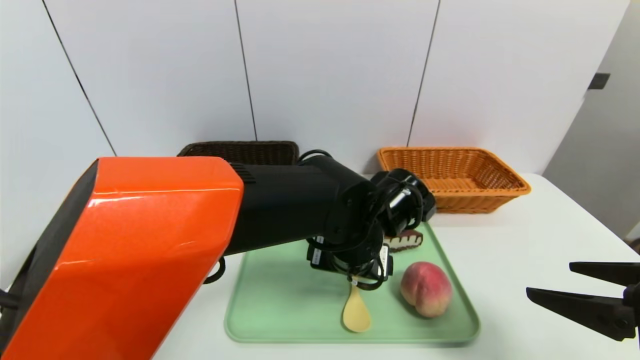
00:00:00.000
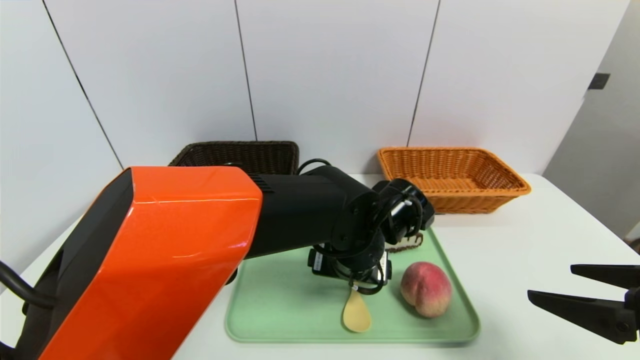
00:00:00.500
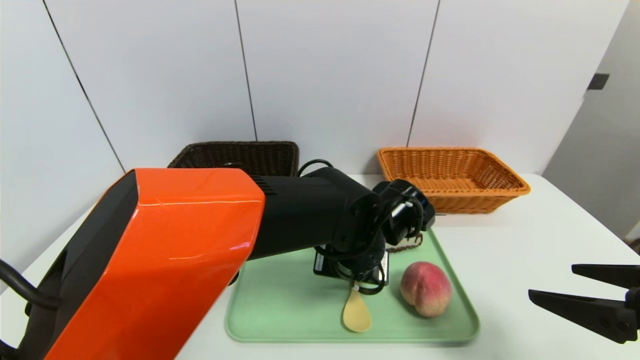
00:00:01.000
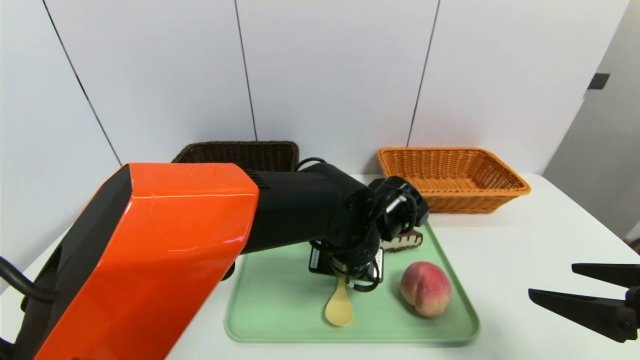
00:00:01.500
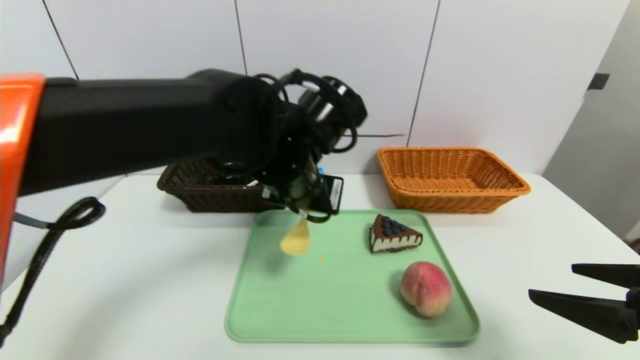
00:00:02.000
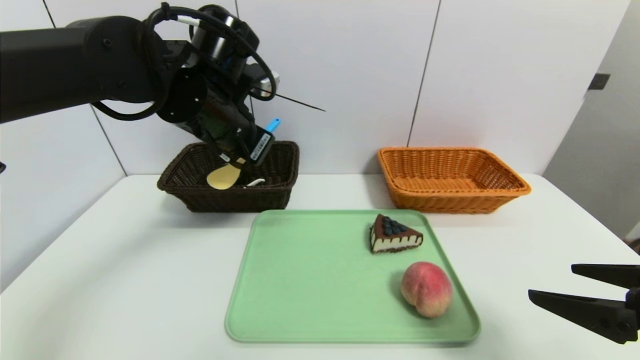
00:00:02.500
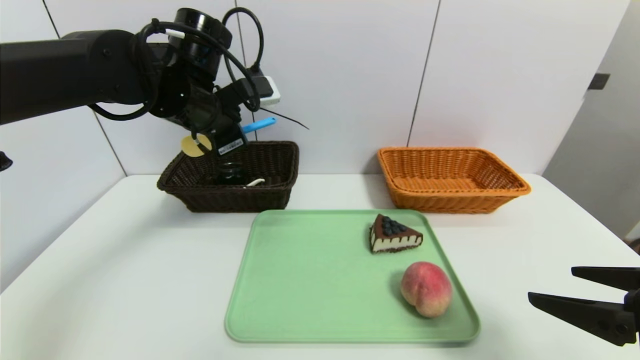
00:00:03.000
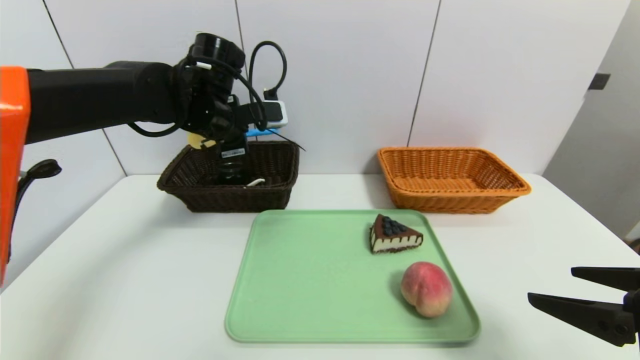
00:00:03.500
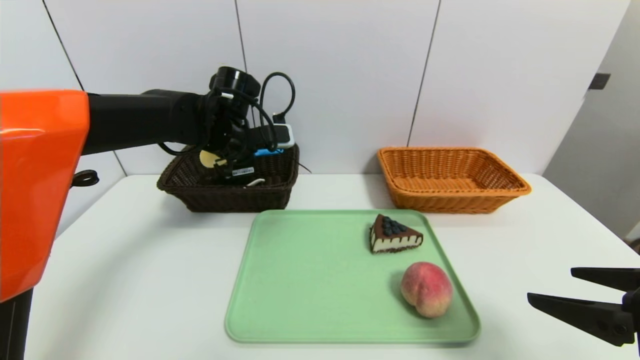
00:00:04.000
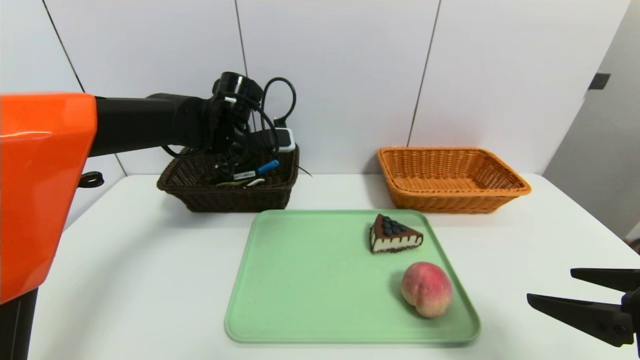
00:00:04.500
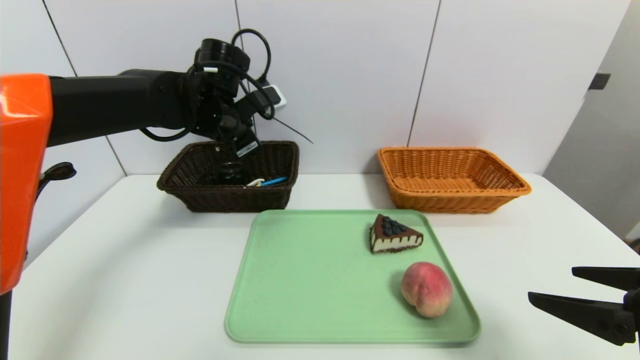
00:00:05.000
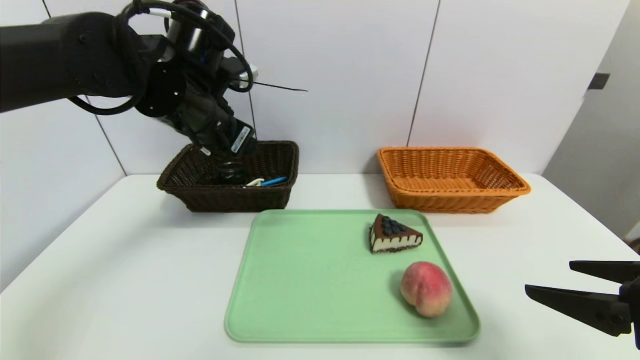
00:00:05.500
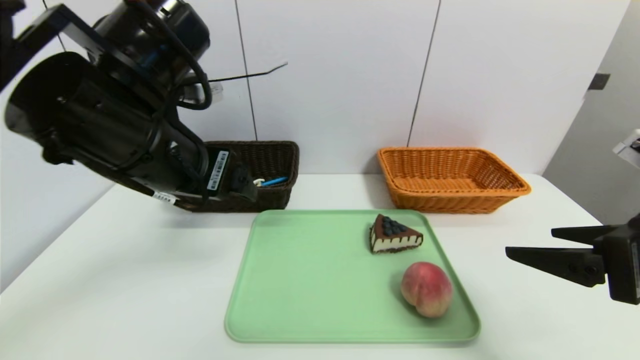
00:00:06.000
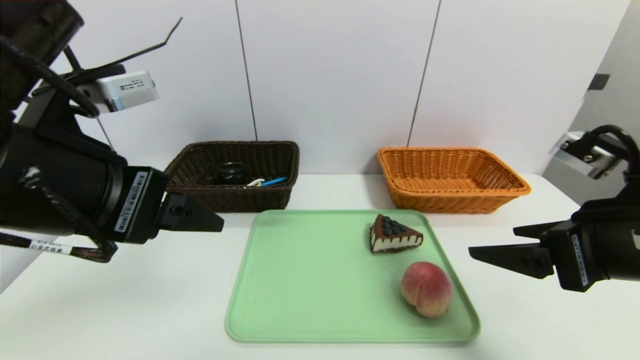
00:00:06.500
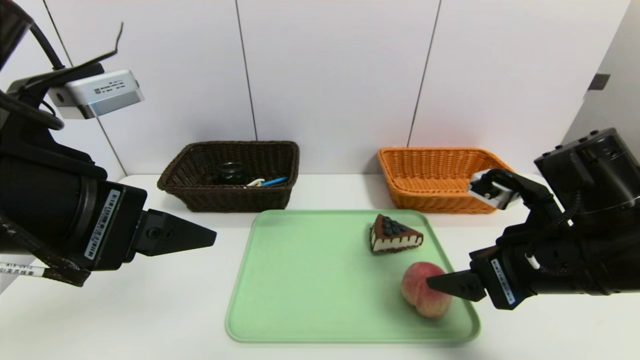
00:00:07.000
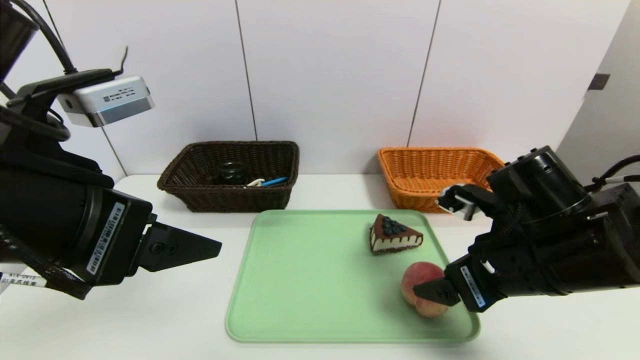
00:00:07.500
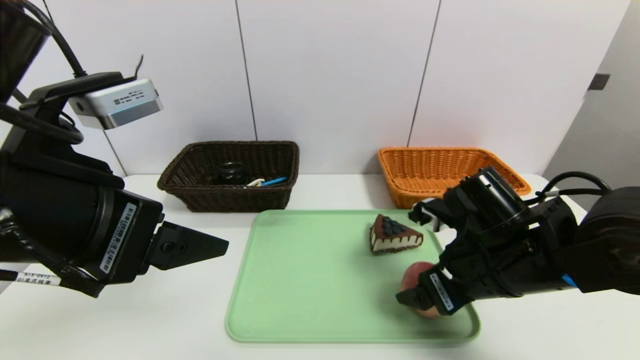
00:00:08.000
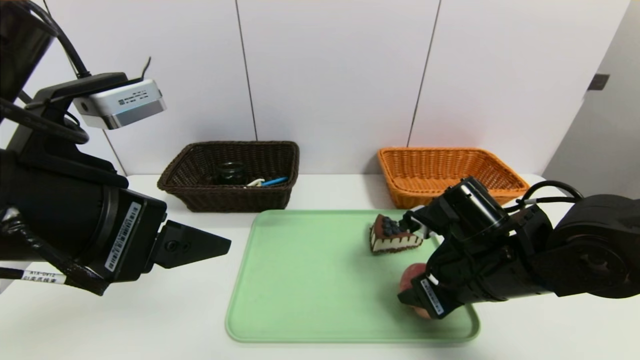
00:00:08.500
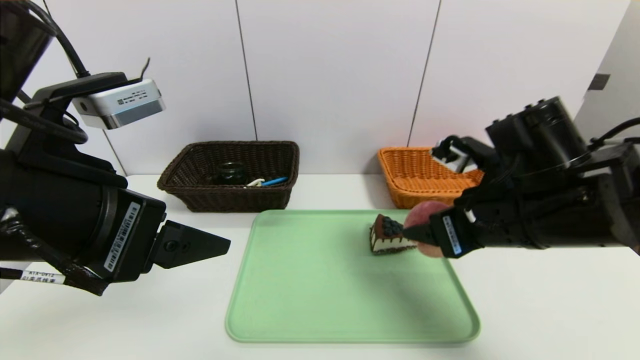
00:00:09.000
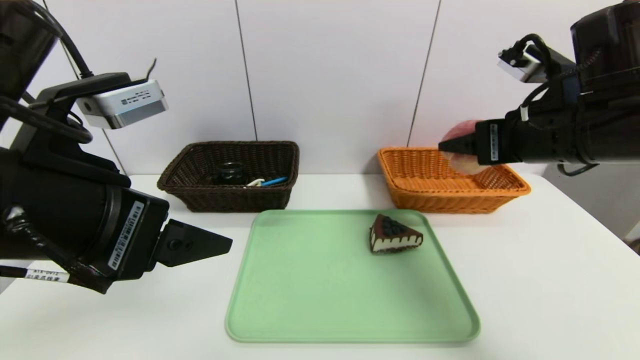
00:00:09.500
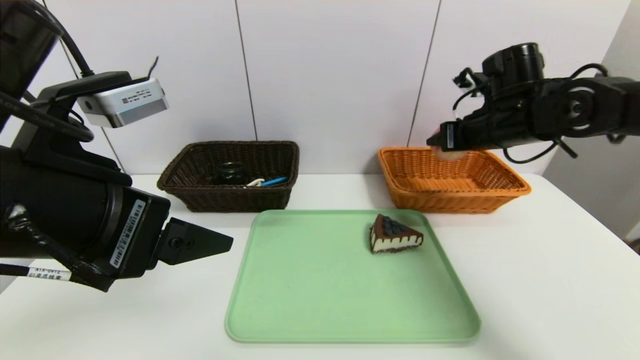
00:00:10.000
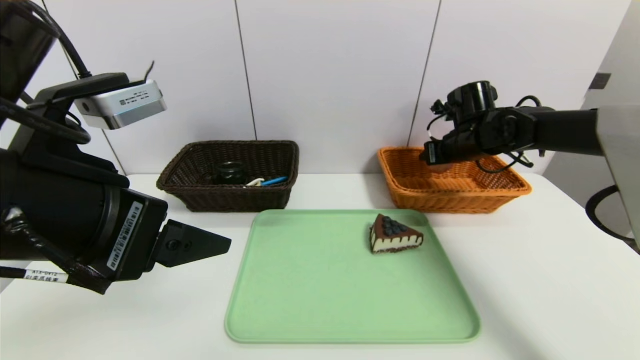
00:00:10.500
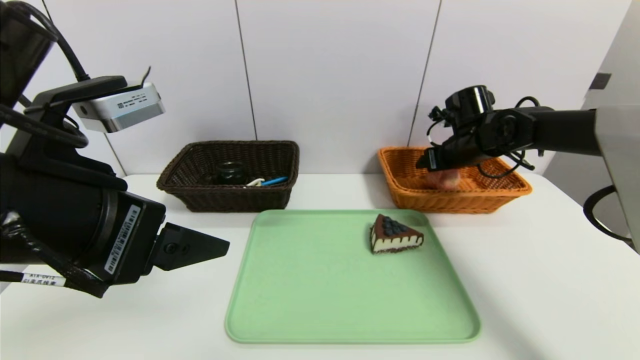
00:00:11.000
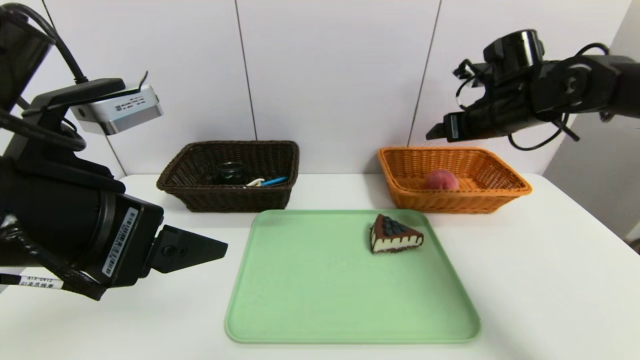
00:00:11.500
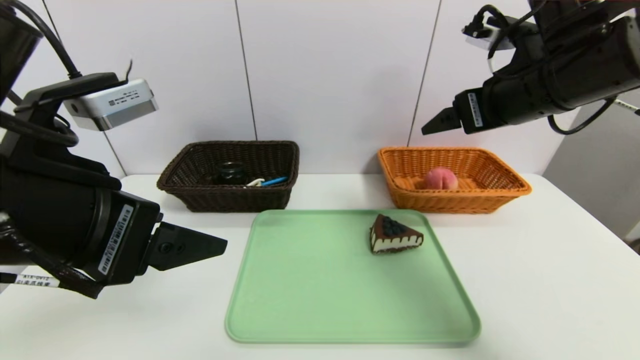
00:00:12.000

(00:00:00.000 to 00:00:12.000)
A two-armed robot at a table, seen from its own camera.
Task of the whole recording: place the food in the right basket with the right gripper, and place the non food items in the left basket with the left gripper.
Step, 00:00:00.000 - 00:00:05.000: Grasp the spoon and put it in the left basket.
Step, 00:00:05.500 - 00:00:11.000: Grasp the peach and put it in the right basket.
00:00:00.000 - 00:00:02.000: The left gripper is displaced upward and to the left by about 10 cm, and closes.
00:00:02.000 - 00:00:04.000: The left gripper moves forward and to the left, about 15 cm.
00:00:04.000 - 00:00:06.000: The left gripper moves backward and upward, roughly 20 cm, and opens its fingers.
00:00:06.000 - 00:00:08.000: The right gripper goes some 15 cm to the left, downward and forward; the left gripper shifts roughly 10 cm backward.
00:00:08.000 - 00:00:10.000: The right gripper is displaced forward, upward and to the right by about 20 cm, and closes its fingers.
00:00:10.000 - 00:00:12.000: The right gripper goes some 10 cm backward and upward, and opens.

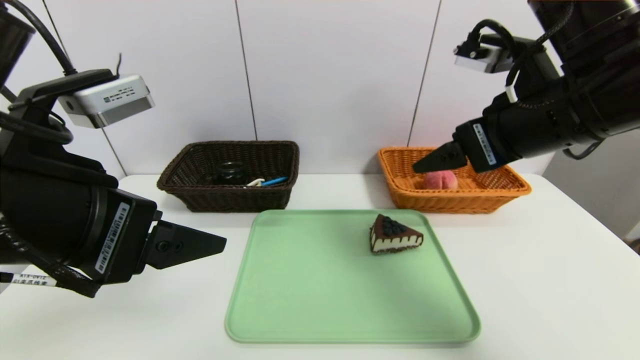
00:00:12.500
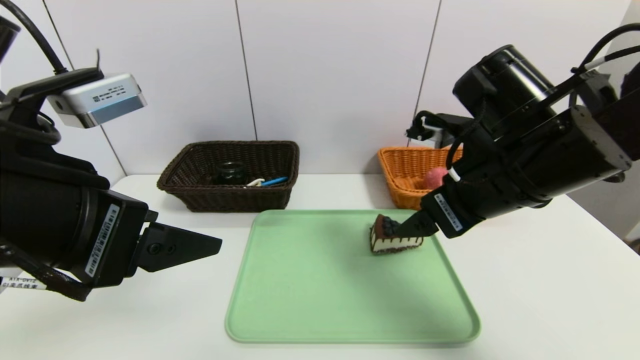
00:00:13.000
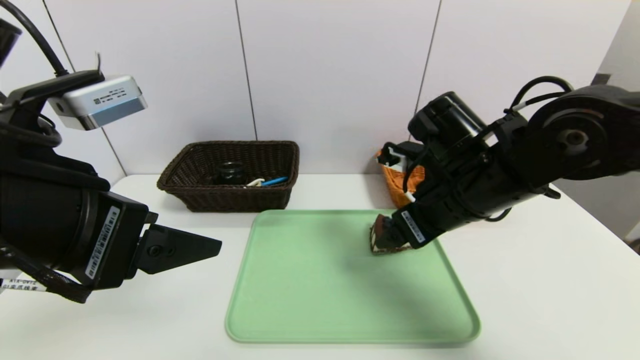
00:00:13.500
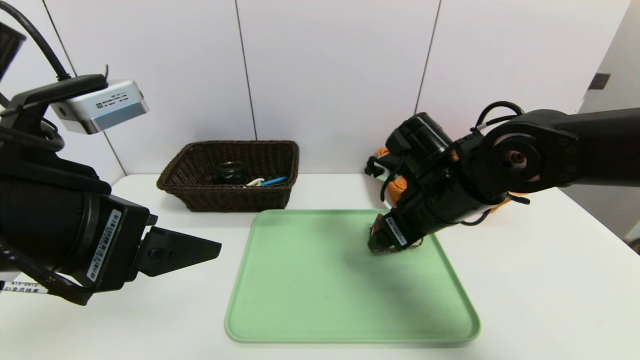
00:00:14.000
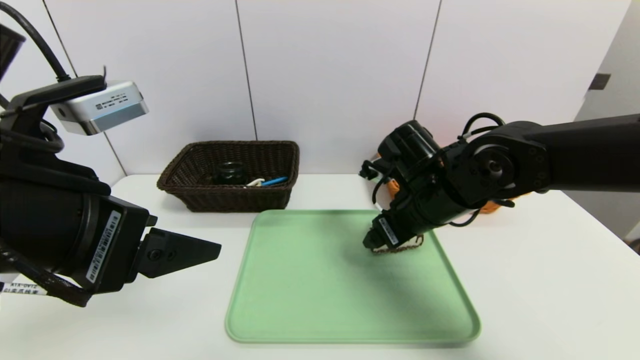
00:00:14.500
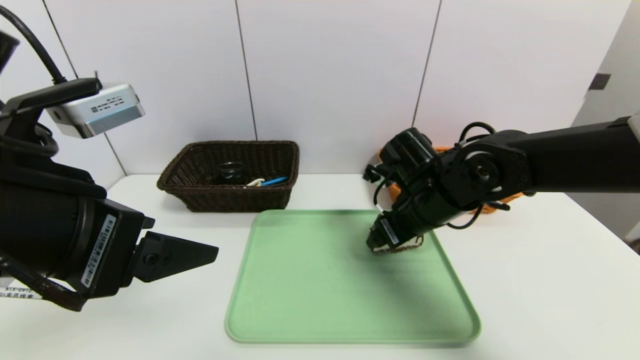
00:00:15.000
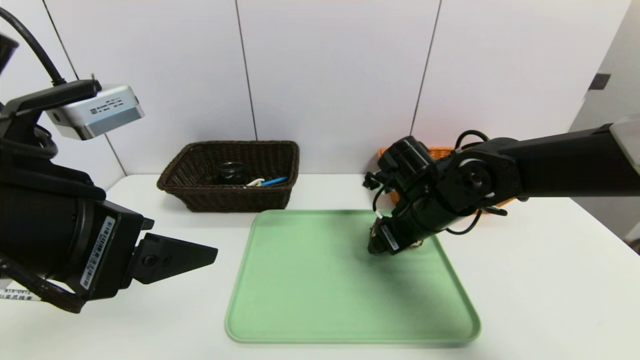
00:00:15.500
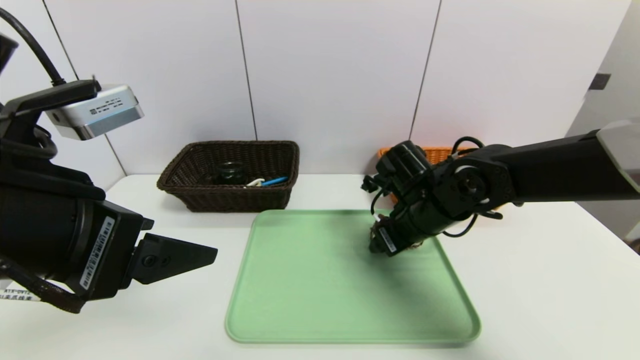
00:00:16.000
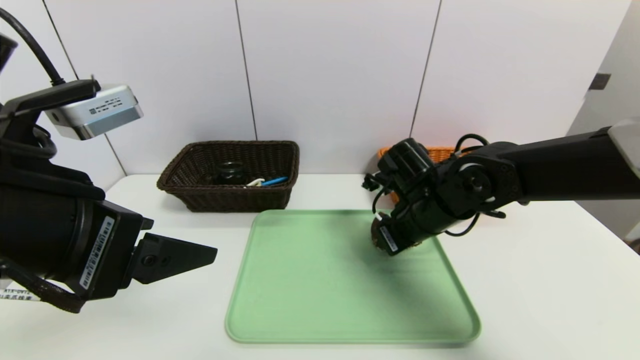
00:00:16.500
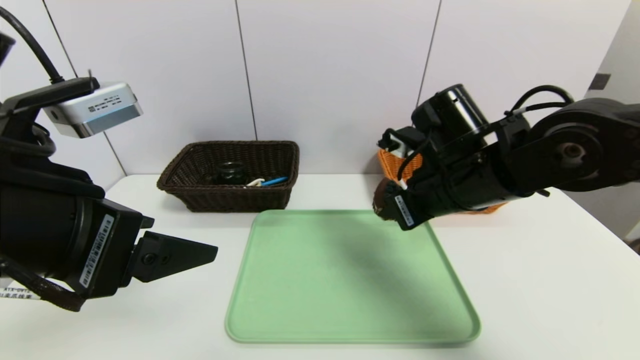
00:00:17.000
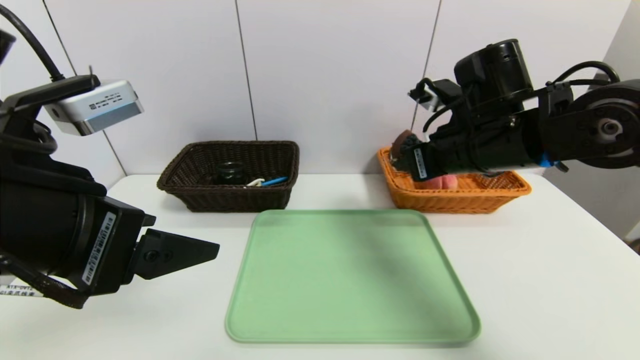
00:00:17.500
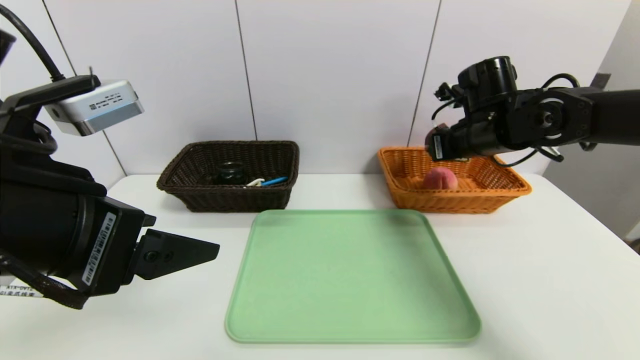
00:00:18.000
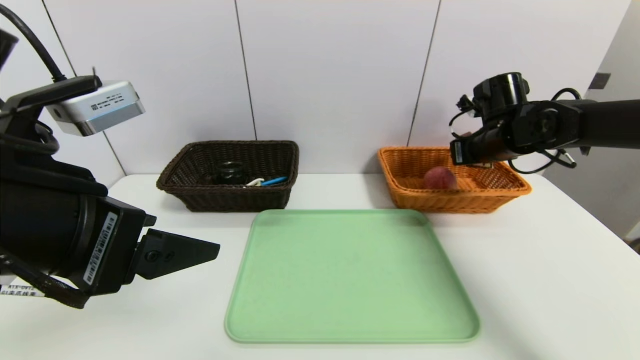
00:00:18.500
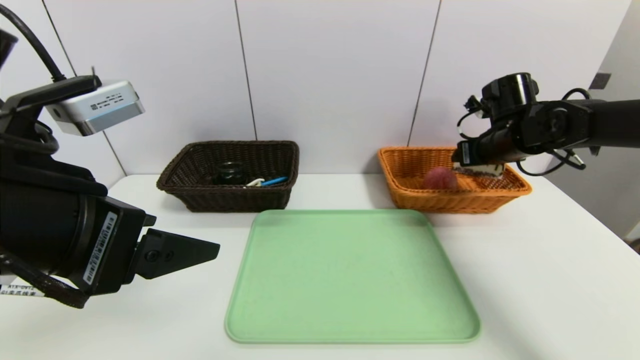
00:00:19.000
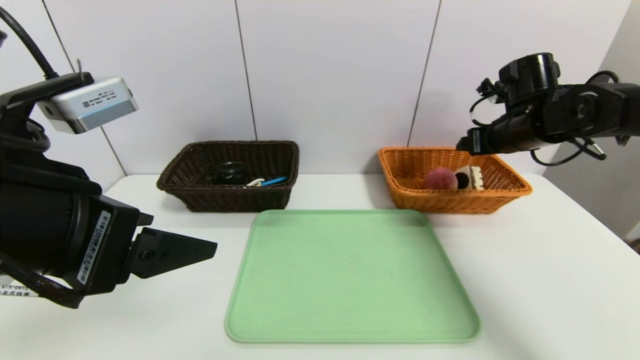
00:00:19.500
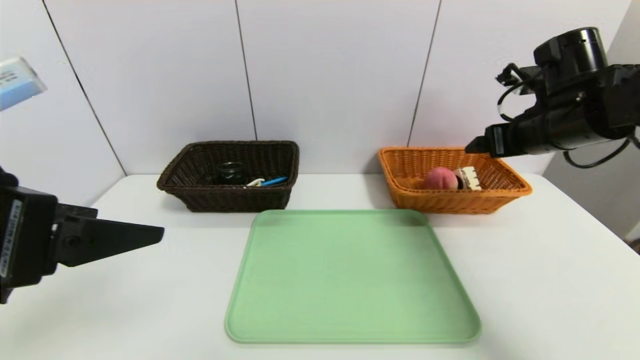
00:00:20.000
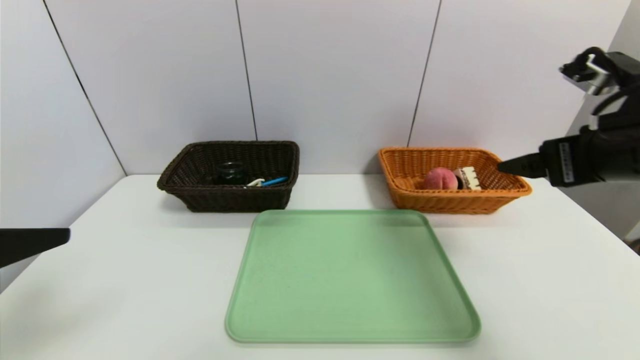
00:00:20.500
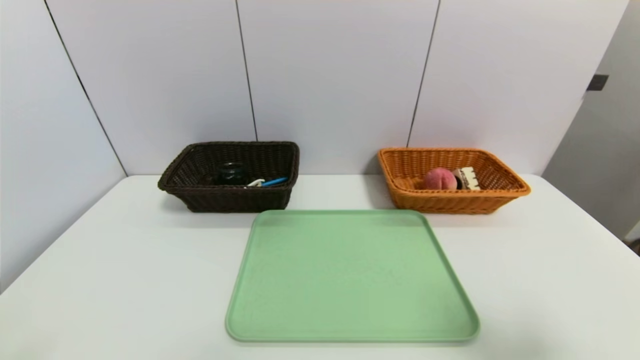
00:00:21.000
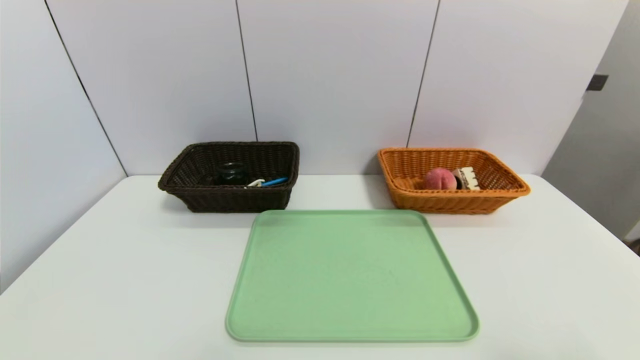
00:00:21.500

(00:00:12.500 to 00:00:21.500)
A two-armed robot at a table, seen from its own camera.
Task of the whole recording: place the food in the right basket with the right gripper, and place the non food items in the left basket with the left gripper.
Step, 00:00:12.500 - 00:00:19.000: Grasp the triangle cake and put it in the right basket.
00:00:12.500 - 00:00:14.500: The right gripper moves downward, to the left and forward, some 15 cm.
00:00:14.500 - 00:00:17.000: The right gripper closes up.
00:00:17.000 - 00:00:19.500: The right gripper is displaced to the right and forward by about 20 cm, and opens its fingers.
00:00:19.500 - 00:00:21.500: The left gripper moves backward, to the left and downward, some 20 cm, while the right gripper heads backward, covering about 40 cm.
